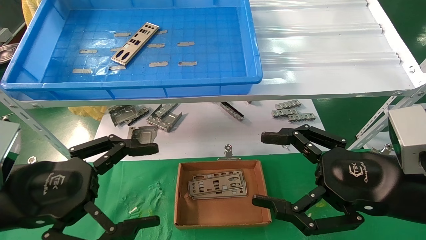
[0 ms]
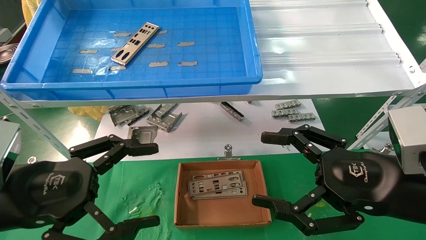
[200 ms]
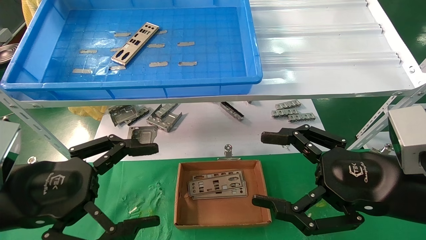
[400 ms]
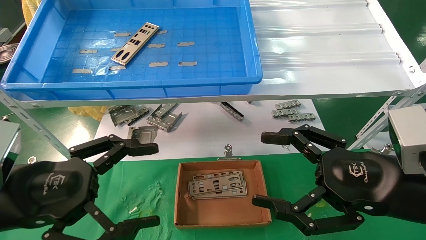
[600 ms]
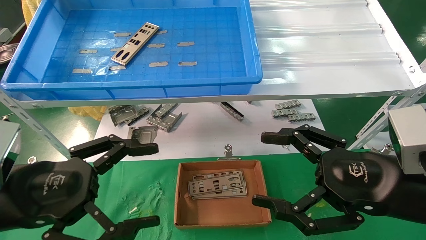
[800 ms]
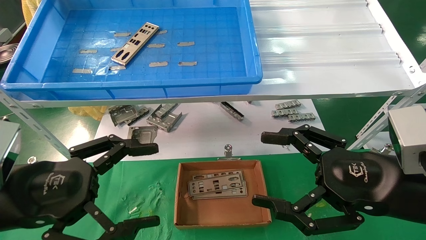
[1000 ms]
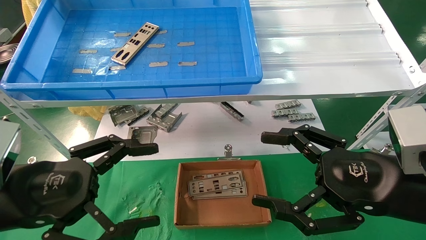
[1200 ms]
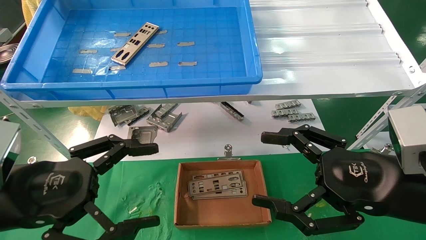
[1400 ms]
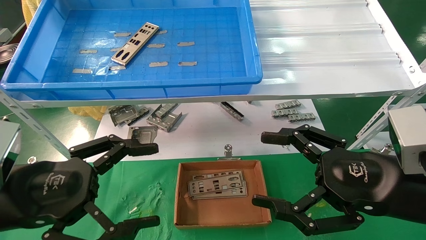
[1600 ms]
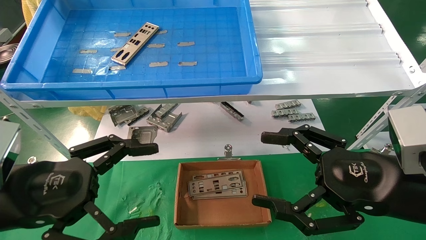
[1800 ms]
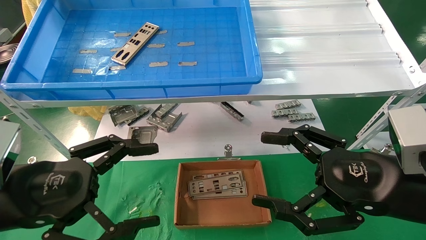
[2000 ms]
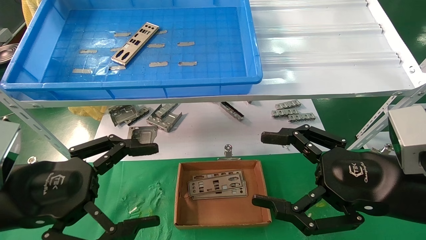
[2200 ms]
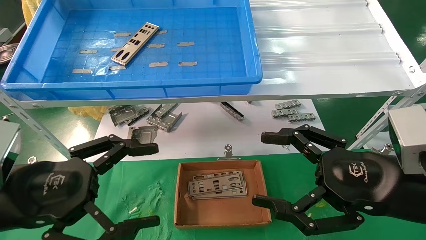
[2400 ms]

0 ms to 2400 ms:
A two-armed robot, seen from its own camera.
Task of the whole recording: pick up the parts on the tray and put them in the cardboard box.
0 ms to 2400 ms: The two grippers keep their place.

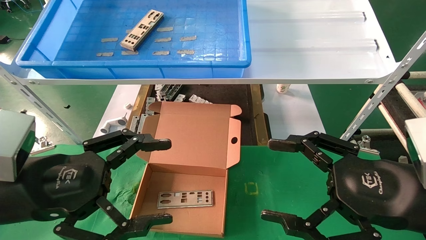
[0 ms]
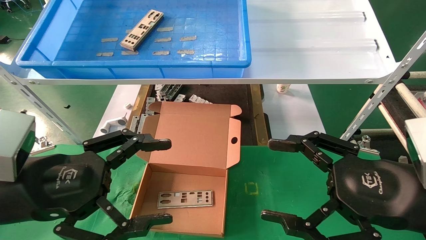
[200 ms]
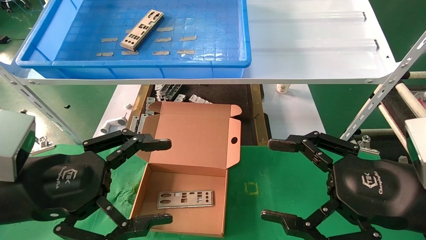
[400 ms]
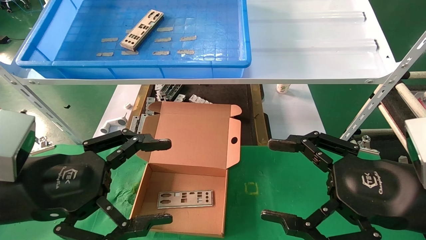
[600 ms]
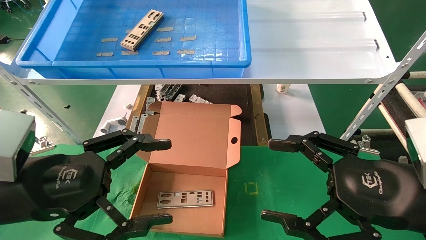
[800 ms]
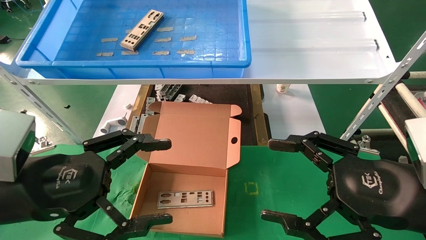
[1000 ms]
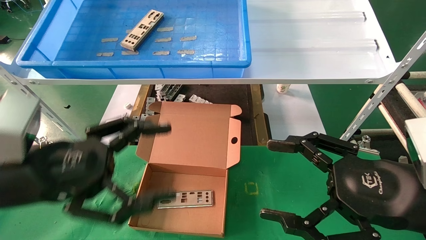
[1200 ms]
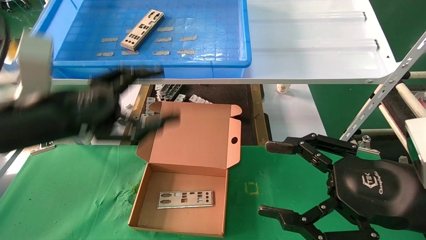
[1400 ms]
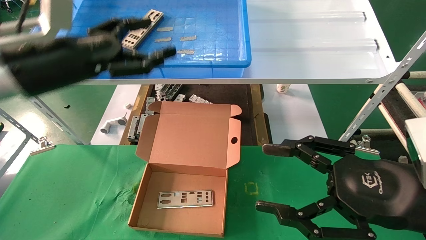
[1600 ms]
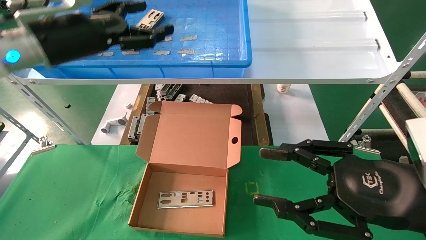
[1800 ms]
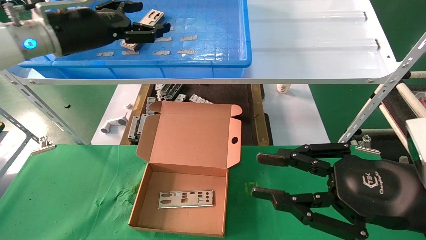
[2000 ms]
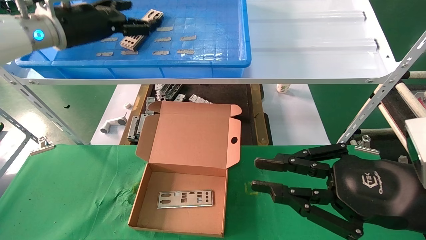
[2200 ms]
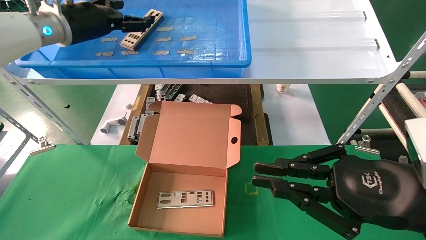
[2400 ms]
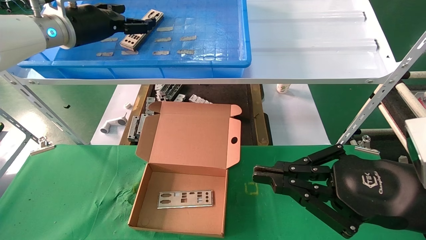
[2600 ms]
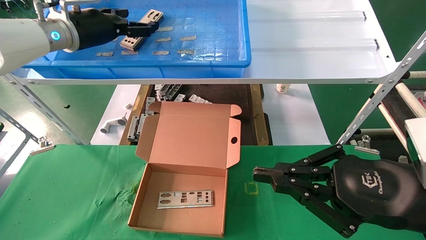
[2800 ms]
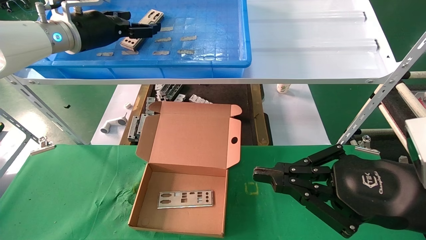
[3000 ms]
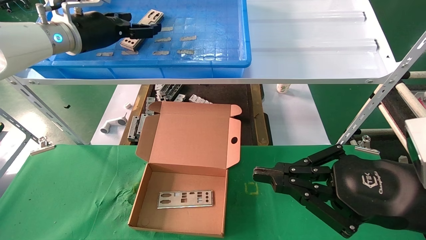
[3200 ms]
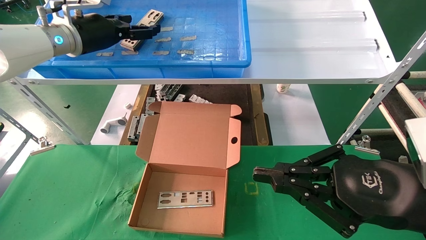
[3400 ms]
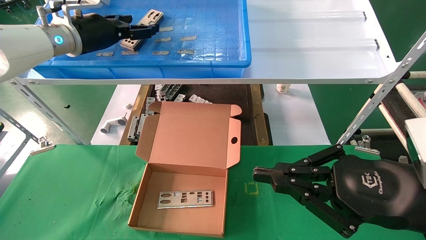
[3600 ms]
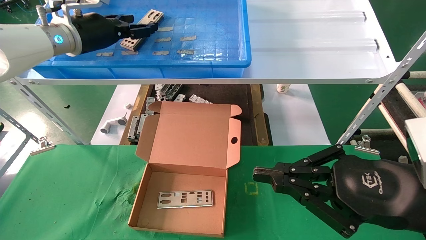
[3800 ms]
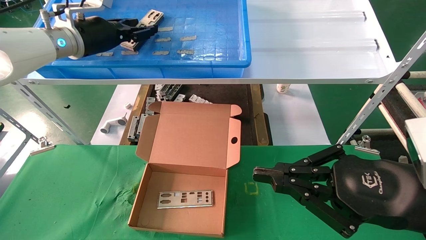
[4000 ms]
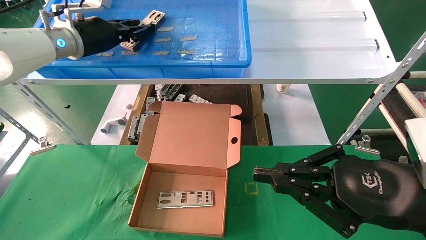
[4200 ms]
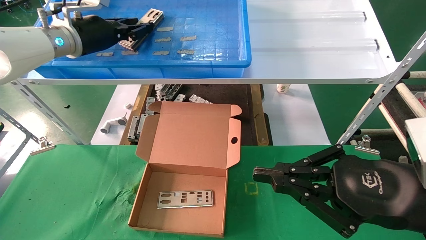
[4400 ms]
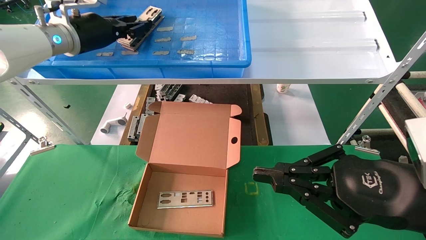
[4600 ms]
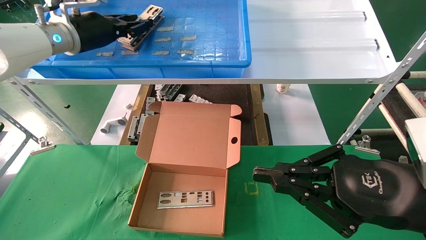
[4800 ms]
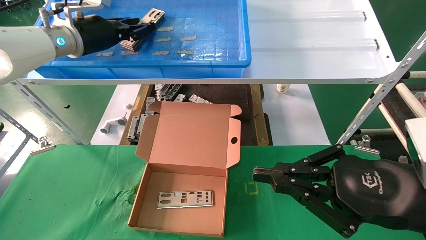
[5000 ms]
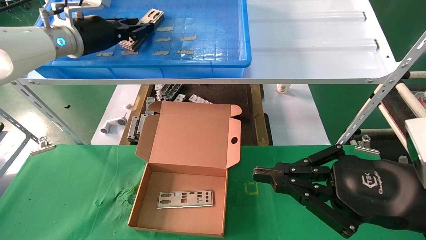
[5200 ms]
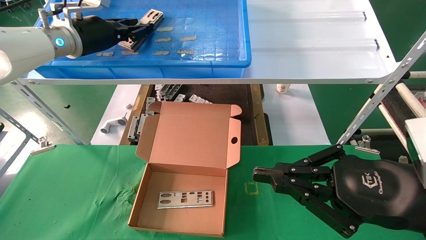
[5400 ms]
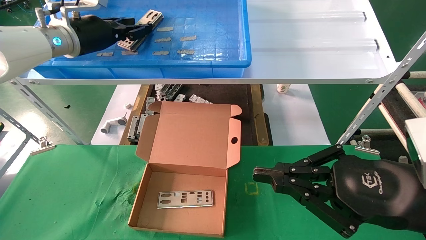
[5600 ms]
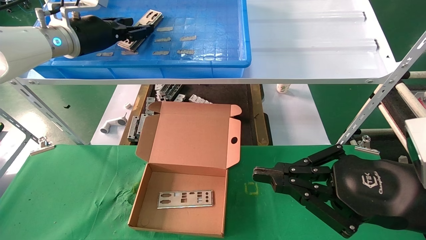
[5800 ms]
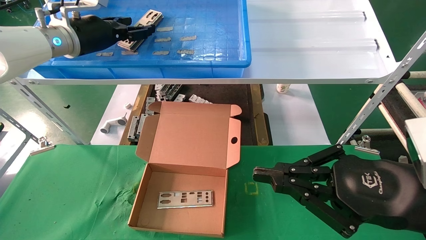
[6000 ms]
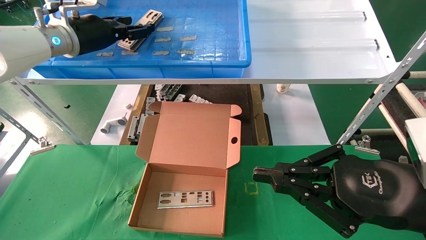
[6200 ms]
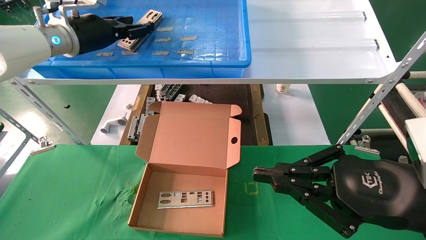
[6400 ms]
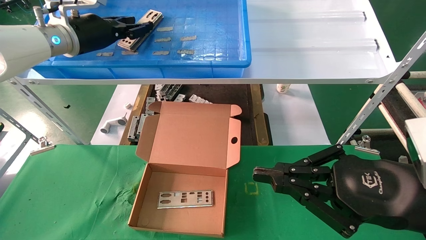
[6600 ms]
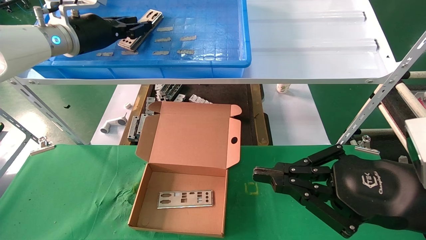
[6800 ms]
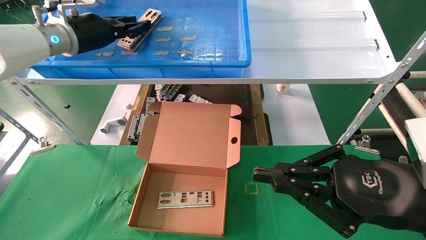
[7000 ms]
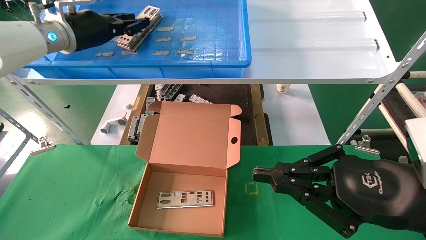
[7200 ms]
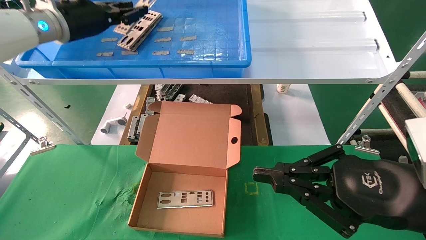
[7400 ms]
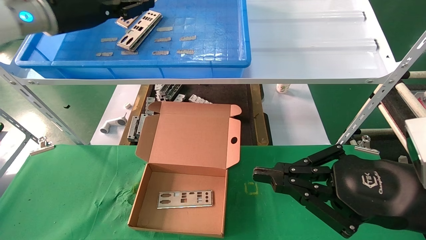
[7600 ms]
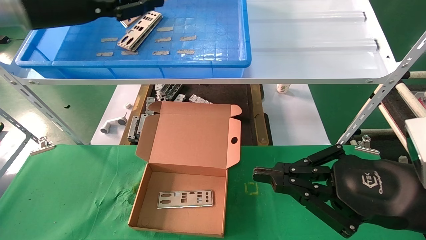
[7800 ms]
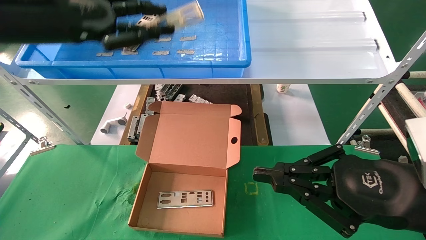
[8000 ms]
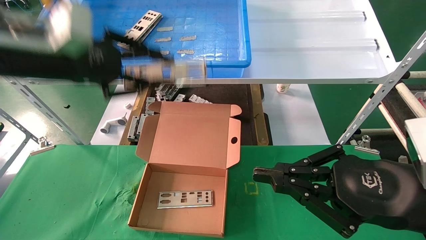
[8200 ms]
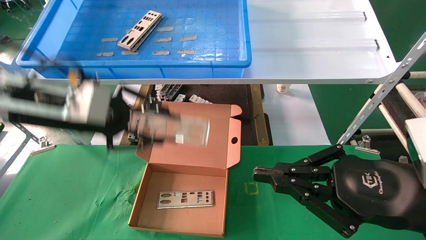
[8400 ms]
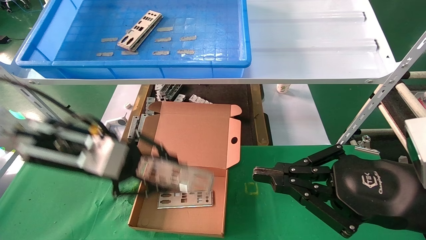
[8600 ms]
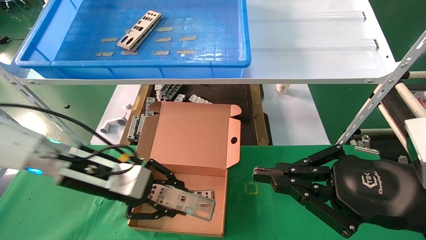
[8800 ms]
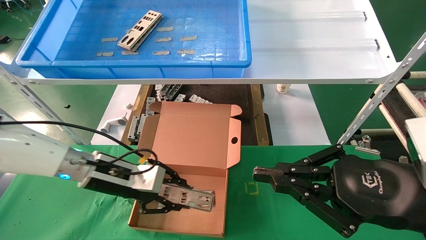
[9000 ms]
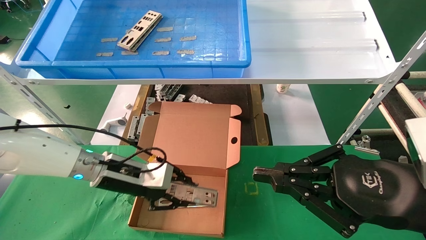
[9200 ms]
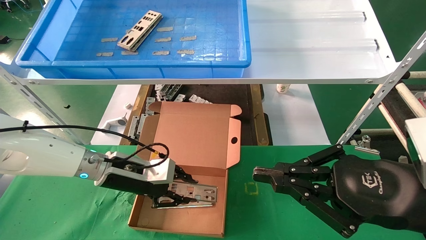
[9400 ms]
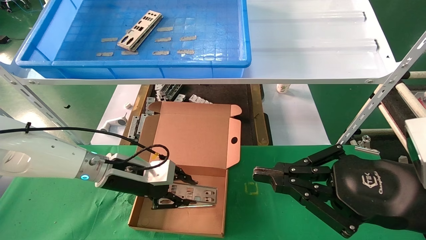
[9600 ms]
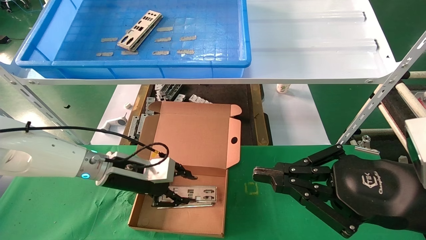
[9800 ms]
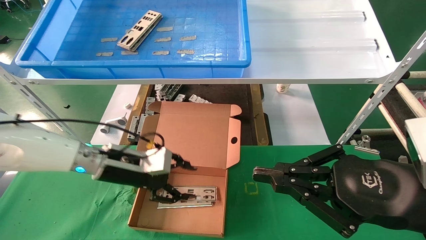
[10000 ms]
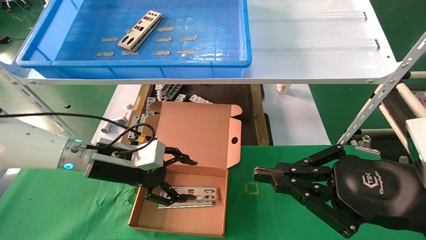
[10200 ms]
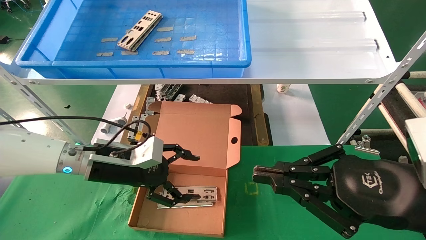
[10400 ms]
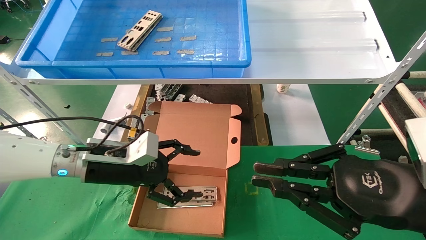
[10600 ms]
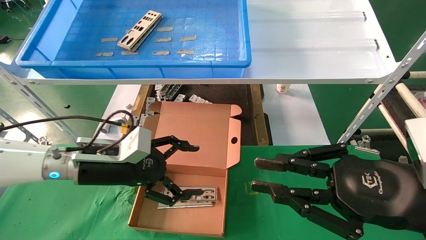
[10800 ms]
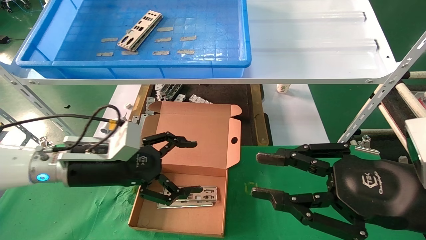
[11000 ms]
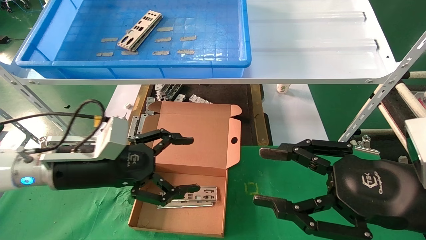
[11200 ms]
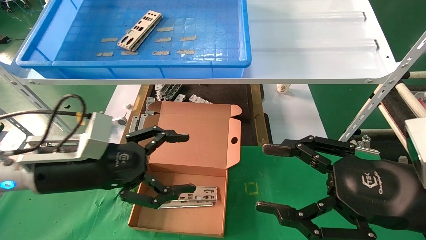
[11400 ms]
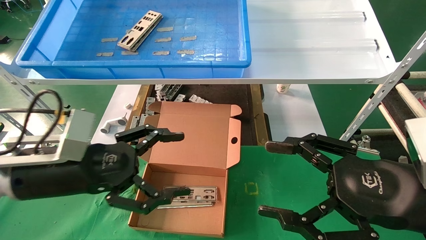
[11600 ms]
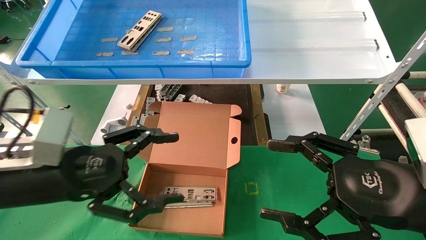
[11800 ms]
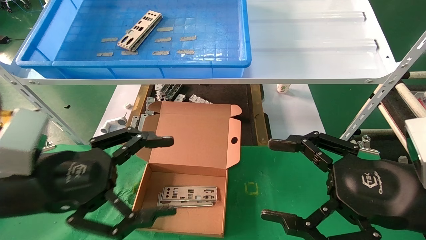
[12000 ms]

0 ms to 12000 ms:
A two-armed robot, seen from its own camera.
Task of the whole recording: pick up the parts on the tray and put them in the cardboard box.
Step, 1400 ms to 7400 ms: Pick up the IO bracket from the container box.
Step, 7600 ms to 10000 ms: Place the IO bracket into the ingredient slot.
0 ms to 1600 ms: The left gripper heads forward and upward, covering roughly 15 cm.
1600 ms to 3000 ms: The left gripper goes about 15 cm forward and upward; the right gripper closes.
3000 ms to 4400 ms: The left gripper closes.
4400 ms to 6000 ms: The two grippers keep their place.
6000 ms to 7600 ms: The left gripper shifts some 5 cm backward, and closes.
7600 ms to 9000 ms: The left gripper shifts approximately 25 cm downward.
9000 ms to 10400 ms: The left gripper opens its fingers.
10400 ms to 12000 ms: The right gripper opens up. The left gripper moves backward, roughly 15 cm.

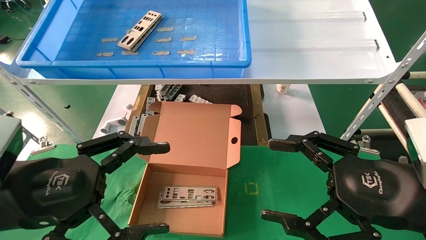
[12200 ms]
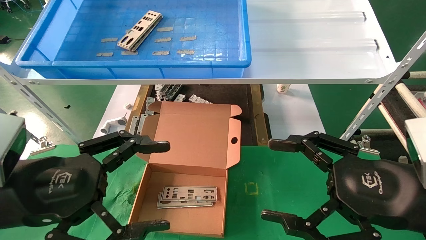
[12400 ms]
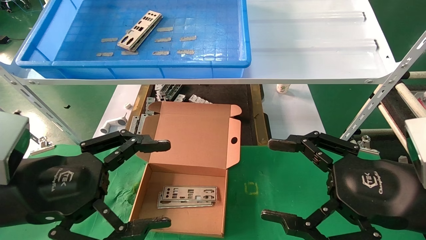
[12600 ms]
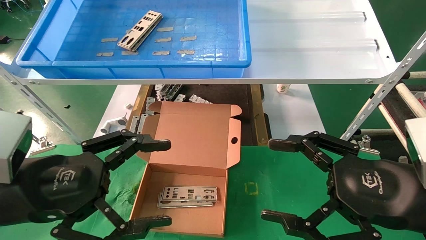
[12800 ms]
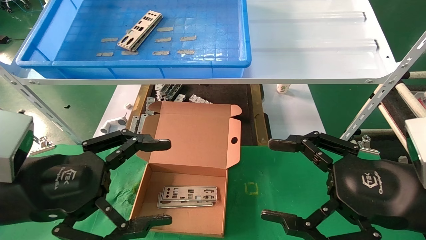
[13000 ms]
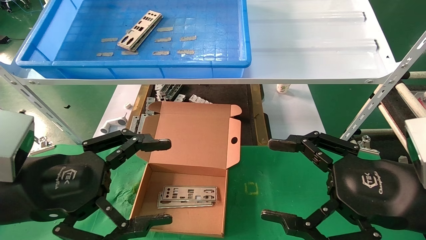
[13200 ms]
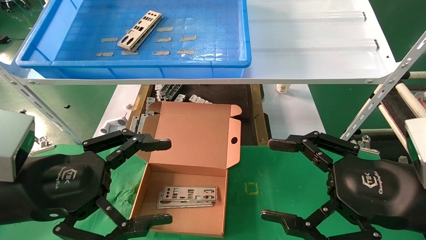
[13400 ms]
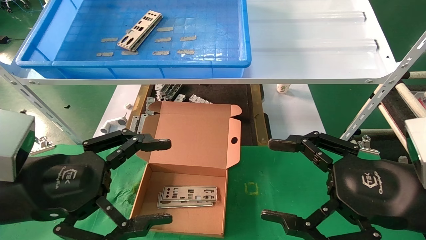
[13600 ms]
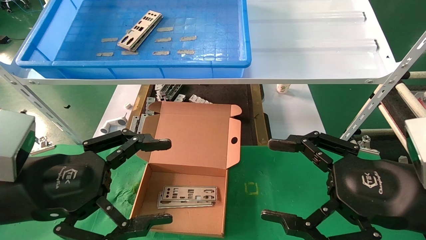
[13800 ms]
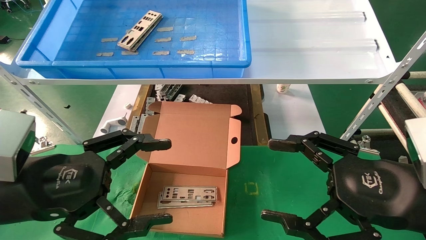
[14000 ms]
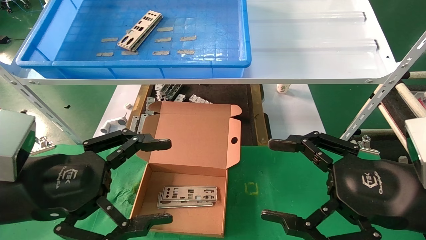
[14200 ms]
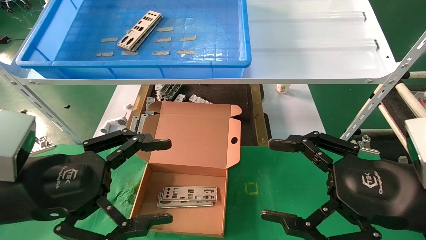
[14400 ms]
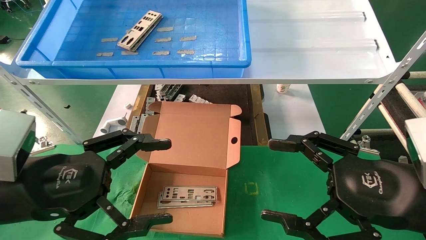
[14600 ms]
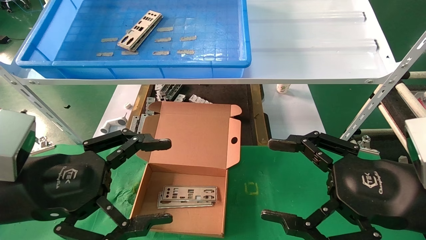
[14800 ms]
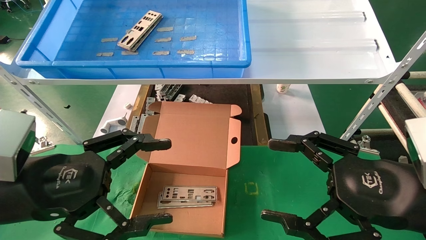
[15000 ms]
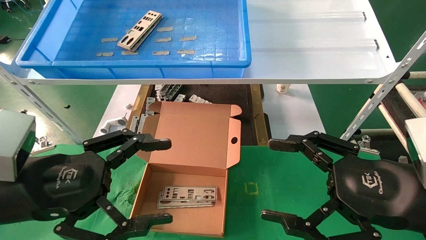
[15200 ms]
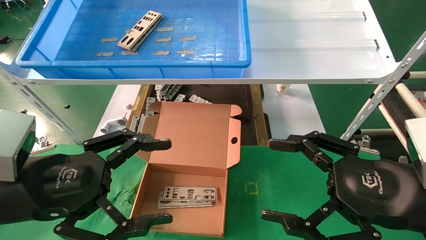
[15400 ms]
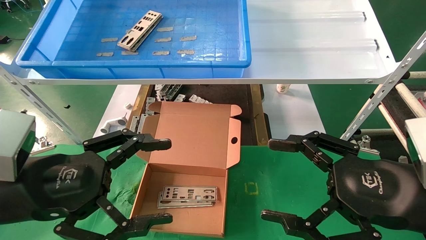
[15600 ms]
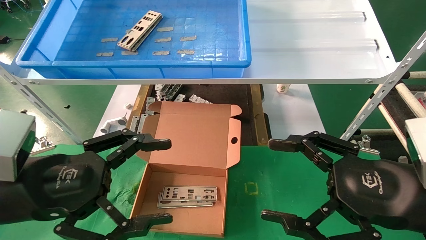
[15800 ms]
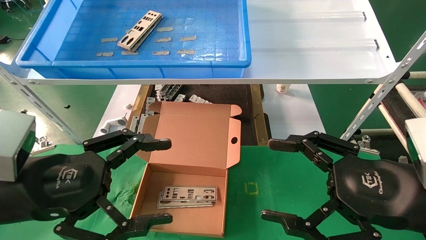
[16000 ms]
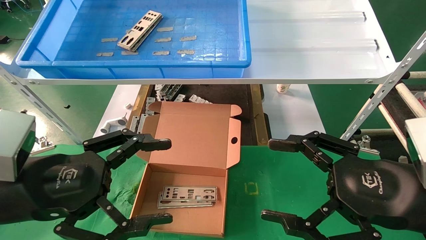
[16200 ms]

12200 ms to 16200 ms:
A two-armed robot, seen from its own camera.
Task of the whole recording: pick up the parts on the tray and put them in the cardboard box.
12200 ms to 16200 ms: Both grippers stay put.
